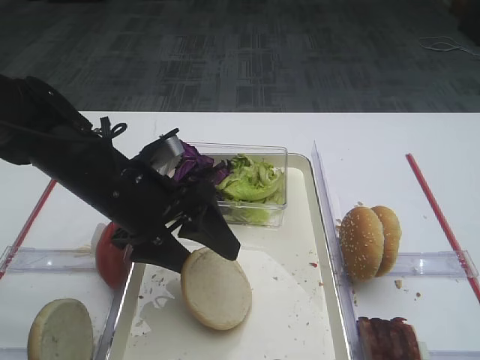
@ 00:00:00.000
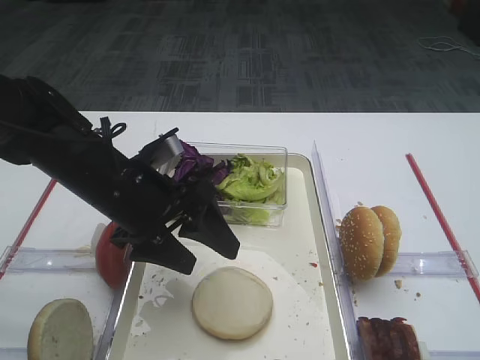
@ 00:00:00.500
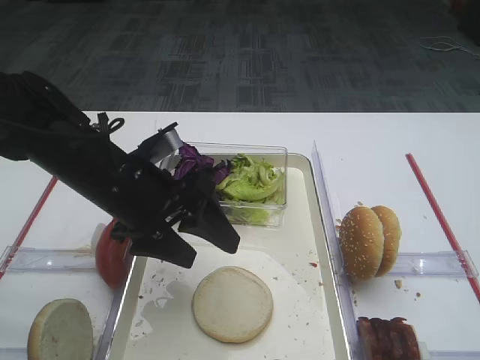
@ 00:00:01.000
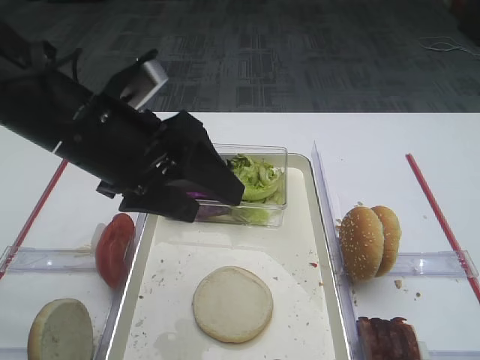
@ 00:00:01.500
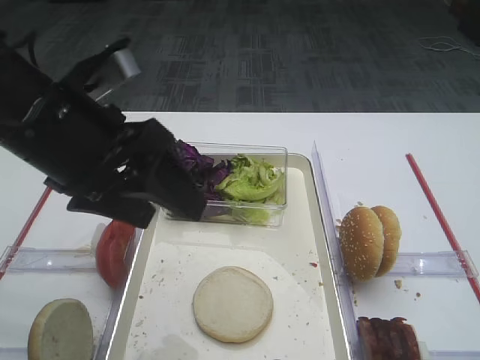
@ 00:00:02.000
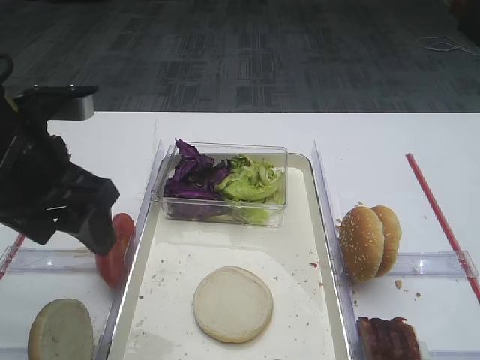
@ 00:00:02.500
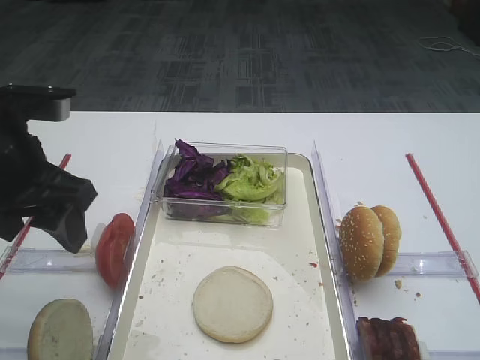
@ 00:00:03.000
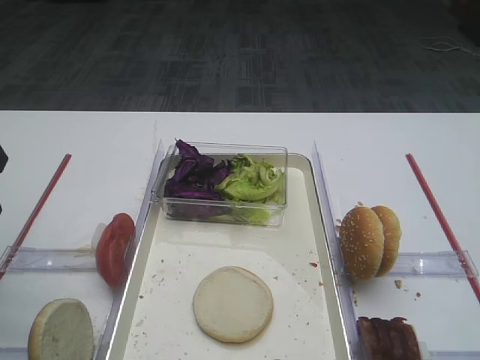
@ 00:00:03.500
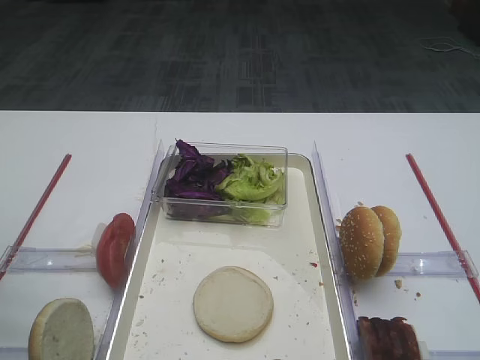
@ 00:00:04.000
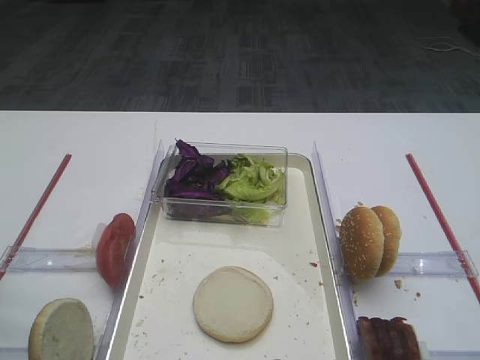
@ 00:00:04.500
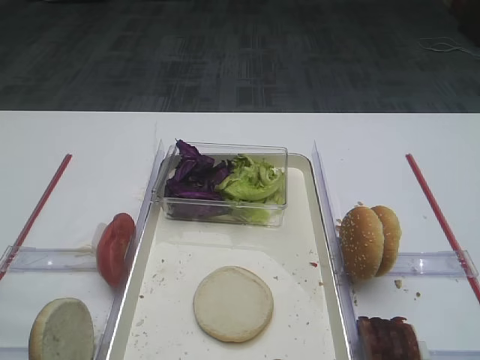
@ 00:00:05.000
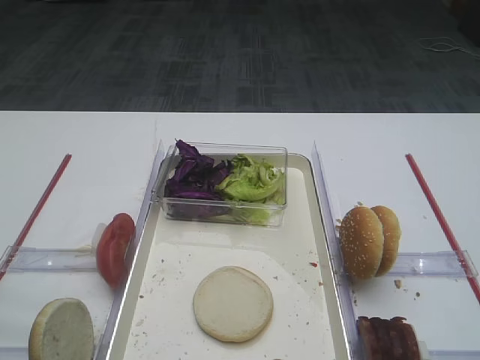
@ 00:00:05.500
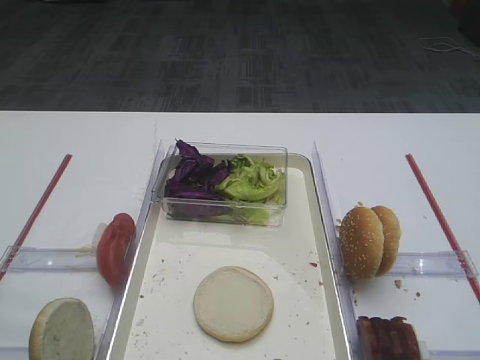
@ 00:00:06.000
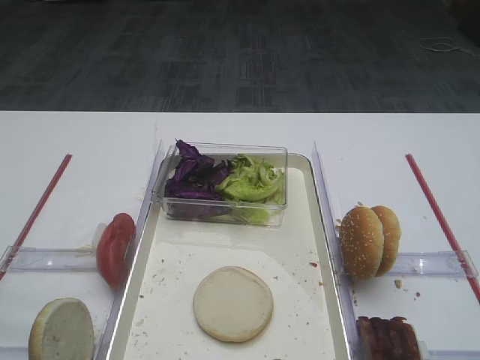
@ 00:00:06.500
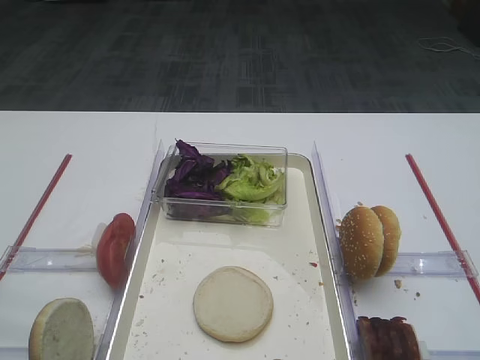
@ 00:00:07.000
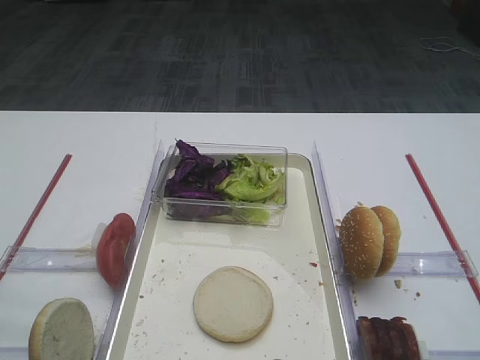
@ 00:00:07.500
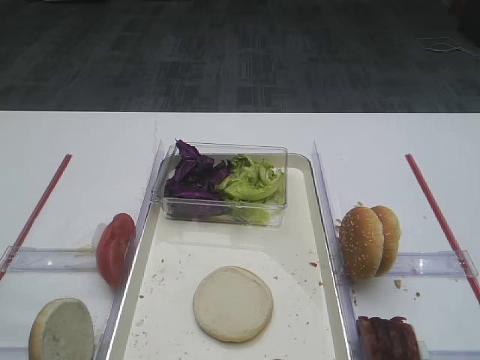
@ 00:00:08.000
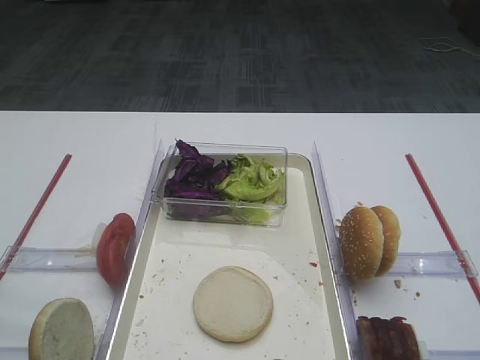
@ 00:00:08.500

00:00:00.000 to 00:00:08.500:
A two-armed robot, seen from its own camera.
00:00:00.000 to 00:00:02.000: The left gripper travels upward by some 10 cm.
00:00:02.000 to 00:00:04.000: The left gripper travels to the left by about 15 cm.
00:00:06.500 to 00:00:08.500: Neither gripper changes place.

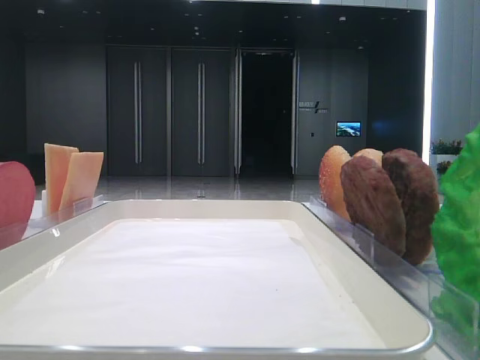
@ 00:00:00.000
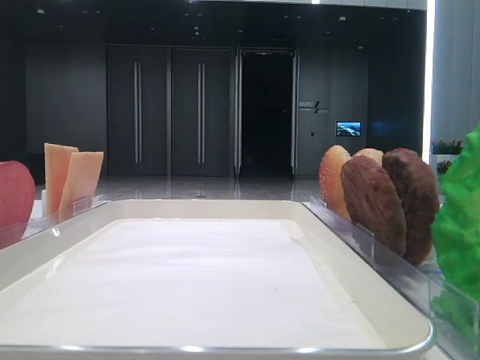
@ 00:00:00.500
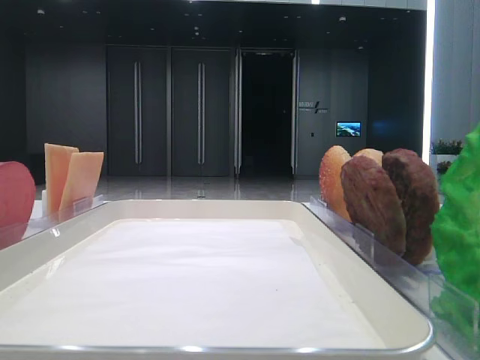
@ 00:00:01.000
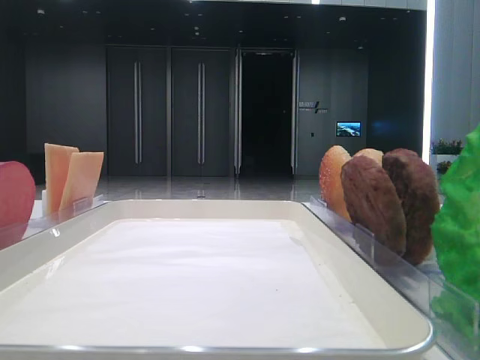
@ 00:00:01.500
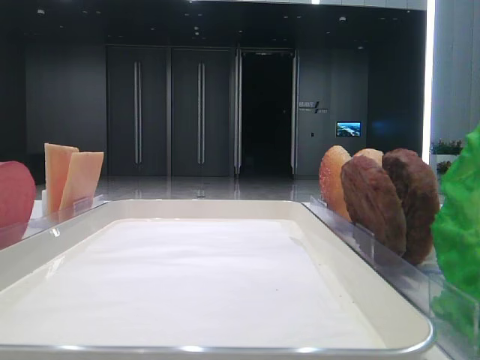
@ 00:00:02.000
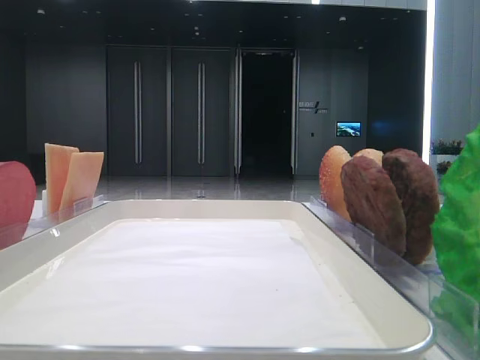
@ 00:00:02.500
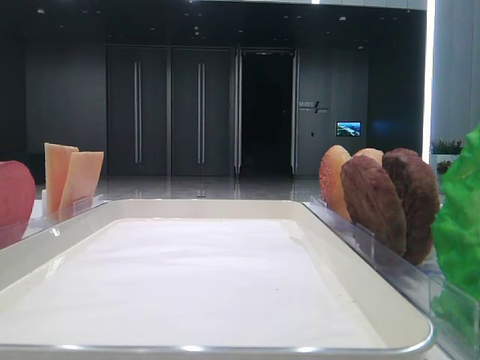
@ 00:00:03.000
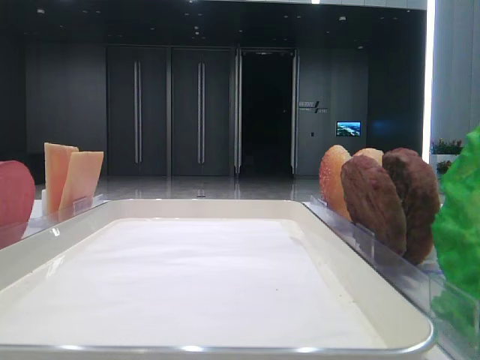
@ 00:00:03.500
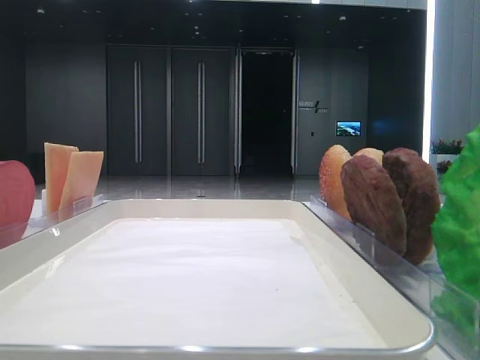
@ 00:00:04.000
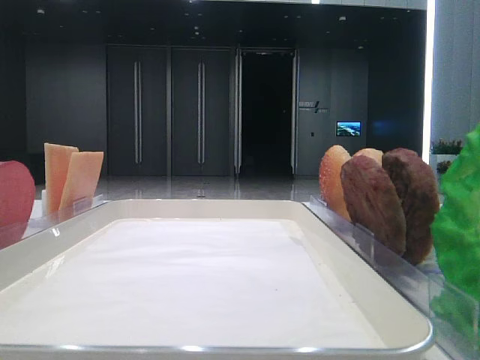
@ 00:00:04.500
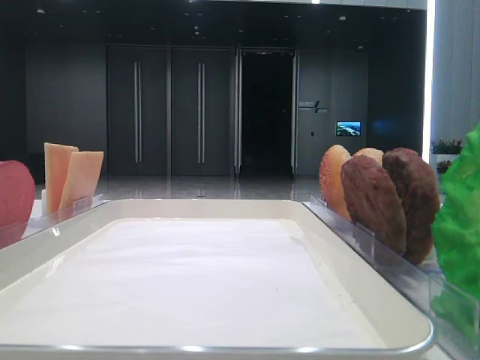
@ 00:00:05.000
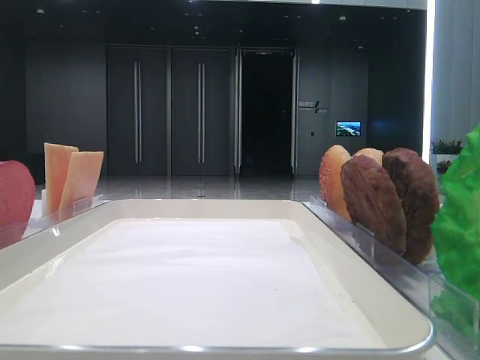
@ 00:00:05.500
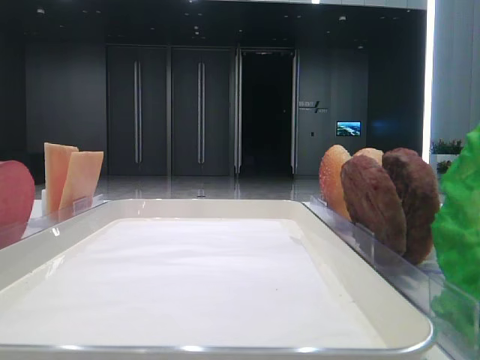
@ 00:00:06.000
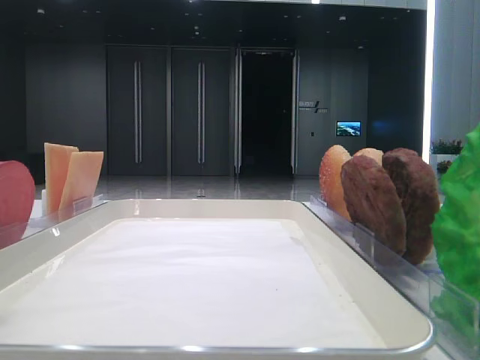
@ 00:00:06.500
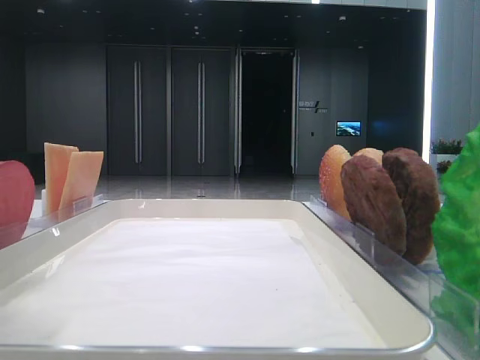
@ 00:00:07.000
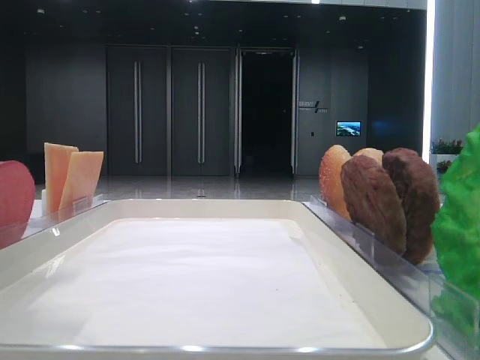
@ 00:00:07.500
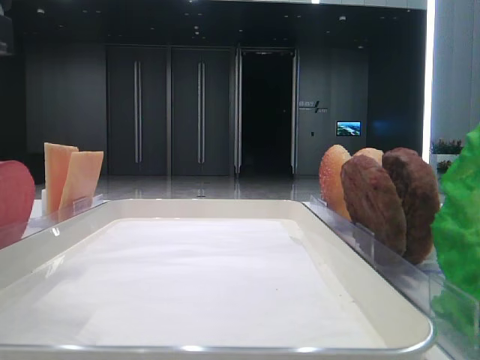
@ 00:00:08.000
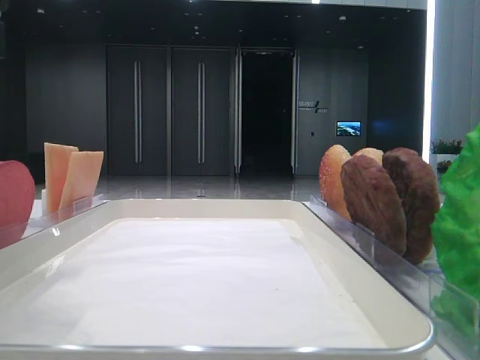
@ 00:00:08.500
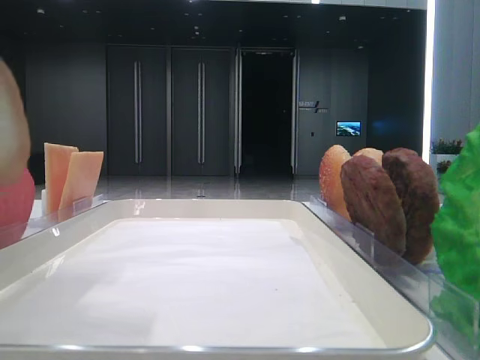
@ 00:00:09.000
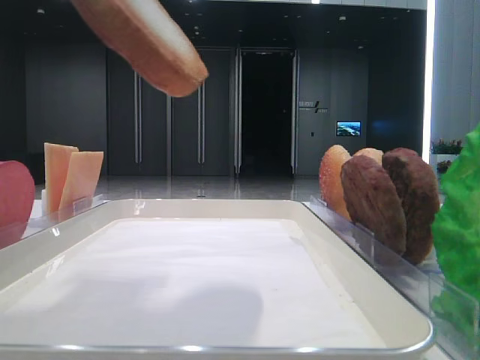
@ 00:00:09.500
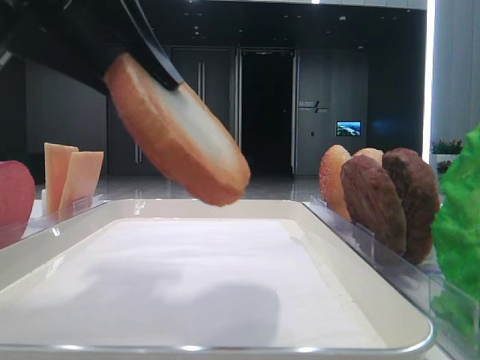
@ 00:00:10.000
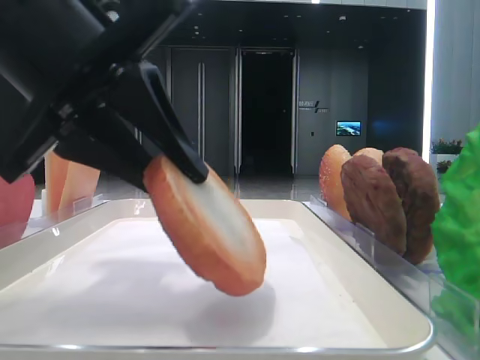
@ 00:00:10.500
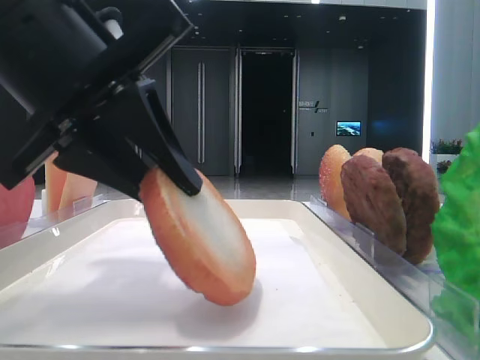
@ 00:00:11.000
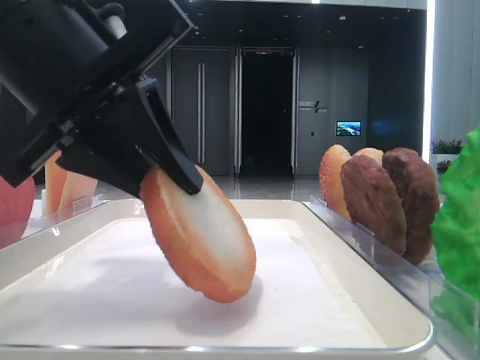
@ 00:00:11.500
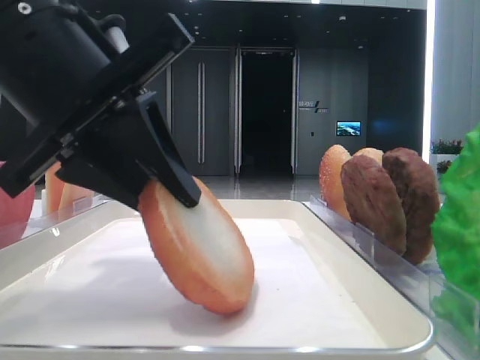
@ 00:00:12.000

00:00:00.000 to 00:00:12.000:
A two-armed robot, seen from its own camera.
00:00:06.000 to 00:00:08.000: The left gripper moves to the right and downward, about 10 cm.
00:00:08.000 to 00:00:10.000: The left gripper goes some 5 cm to the right, and closes its fingers.
00:00:10.000 to 00:00:12.000: The left gripper travels downward by some 5 cm.

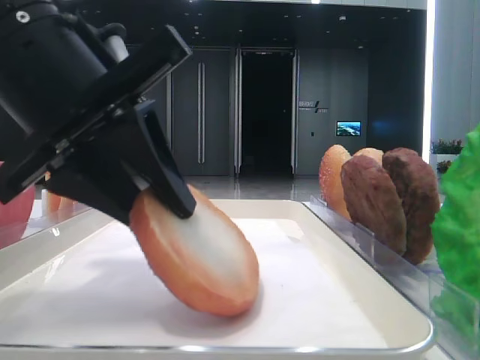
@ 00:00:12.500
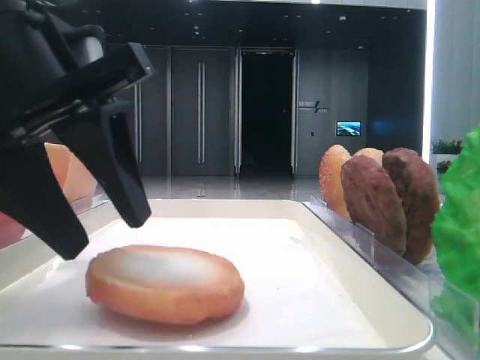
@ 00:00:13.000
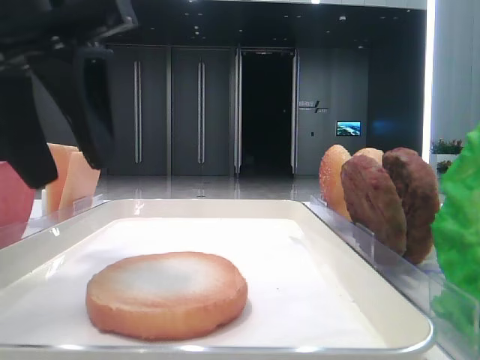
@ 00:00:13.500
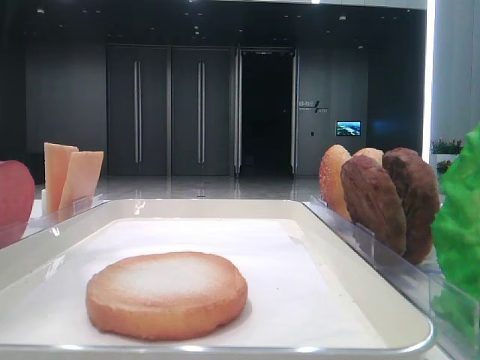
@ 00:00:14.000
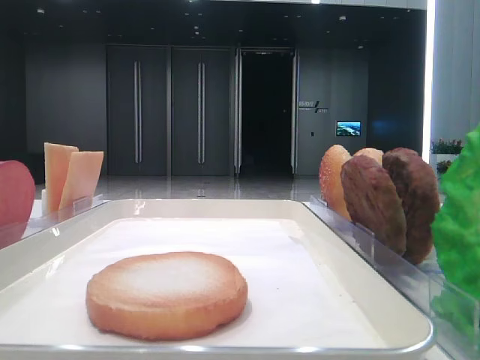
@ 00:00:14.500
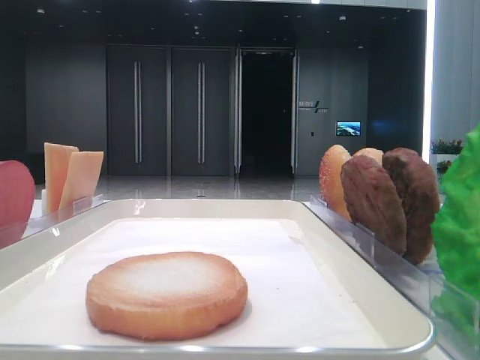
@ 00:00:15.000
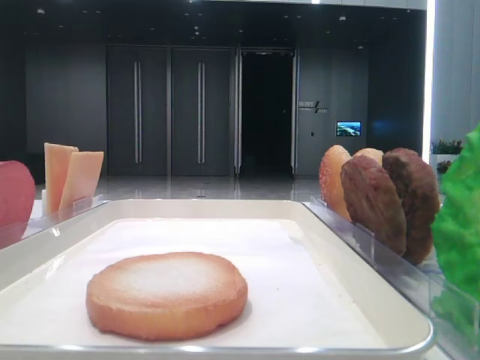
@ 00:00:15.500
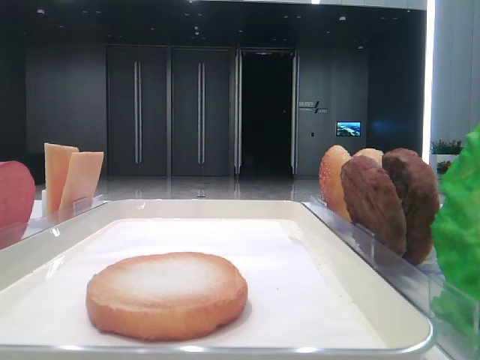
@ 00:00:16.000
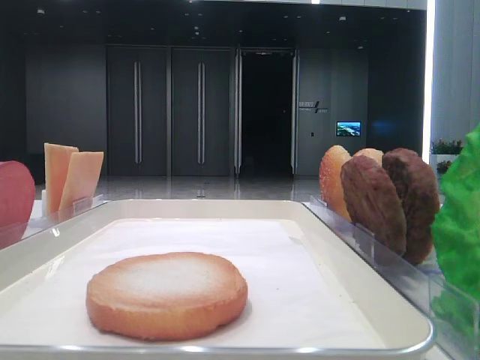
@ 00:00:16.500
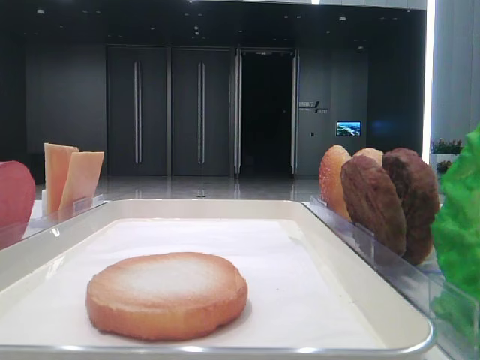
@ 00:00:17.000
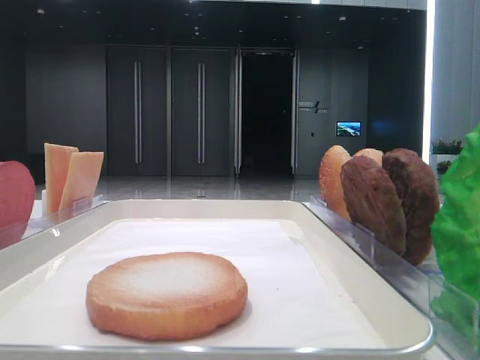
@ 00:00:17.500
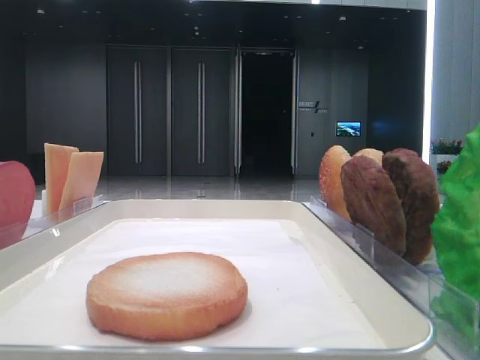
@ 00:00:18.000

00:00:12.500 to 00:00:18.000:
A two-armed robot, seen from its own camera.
00:00:12.500 to 00:00:14.500: The left gripper heads to the left and upward, covering roughly 20 cm, and opens its fingers.
